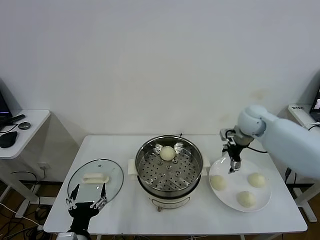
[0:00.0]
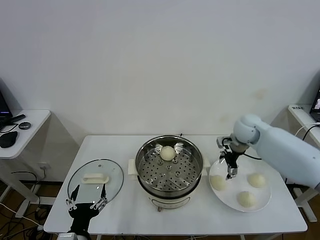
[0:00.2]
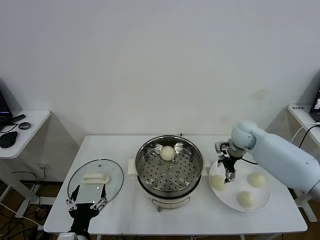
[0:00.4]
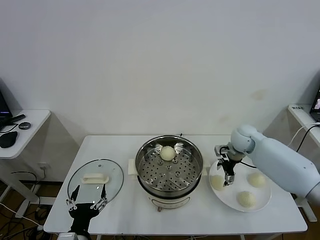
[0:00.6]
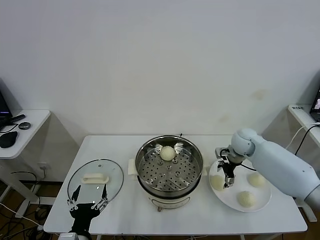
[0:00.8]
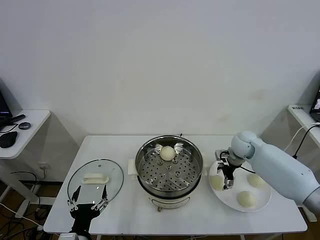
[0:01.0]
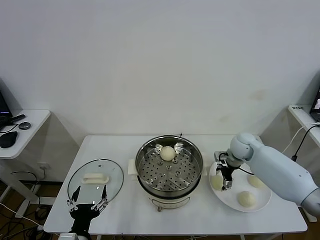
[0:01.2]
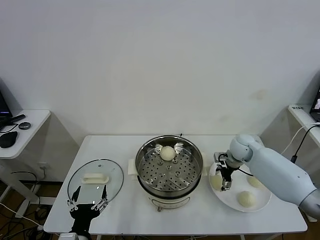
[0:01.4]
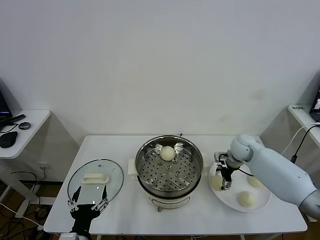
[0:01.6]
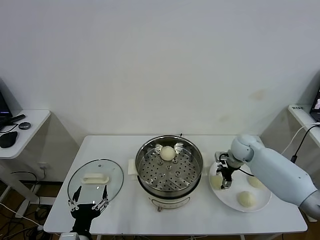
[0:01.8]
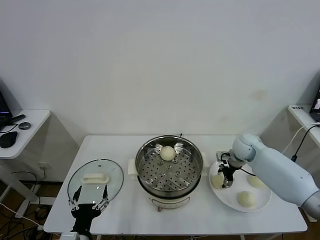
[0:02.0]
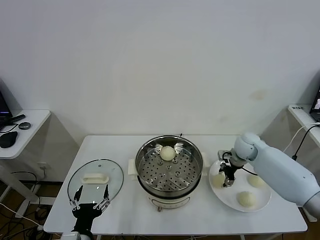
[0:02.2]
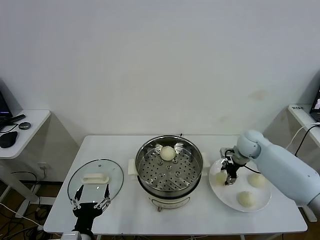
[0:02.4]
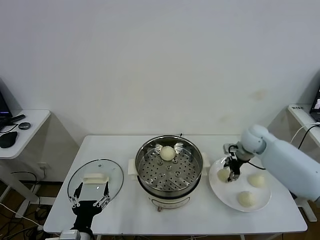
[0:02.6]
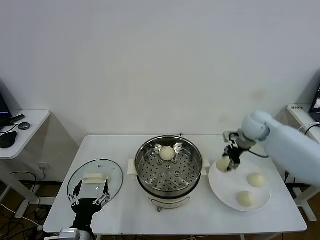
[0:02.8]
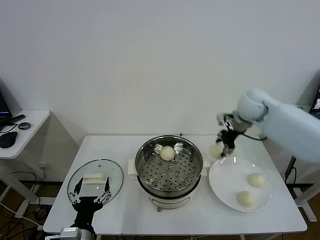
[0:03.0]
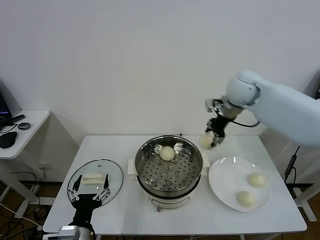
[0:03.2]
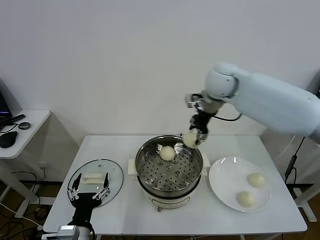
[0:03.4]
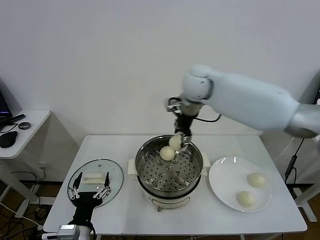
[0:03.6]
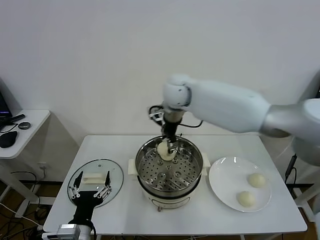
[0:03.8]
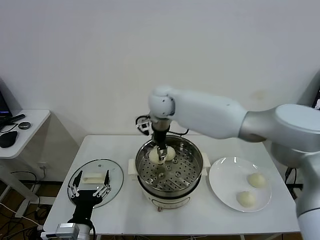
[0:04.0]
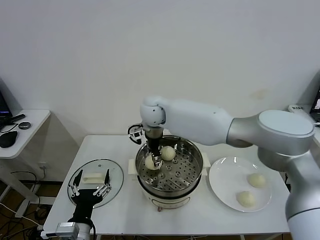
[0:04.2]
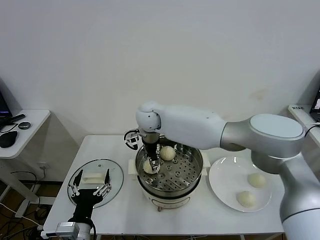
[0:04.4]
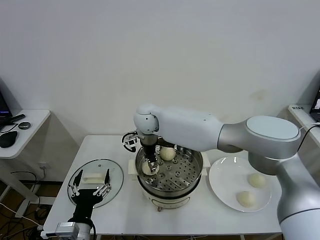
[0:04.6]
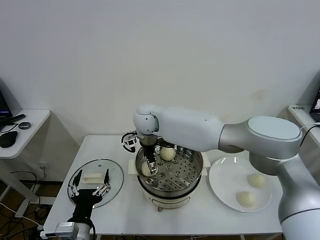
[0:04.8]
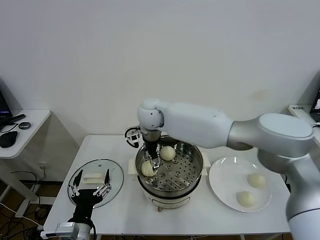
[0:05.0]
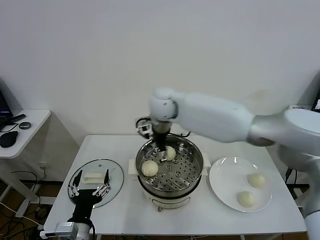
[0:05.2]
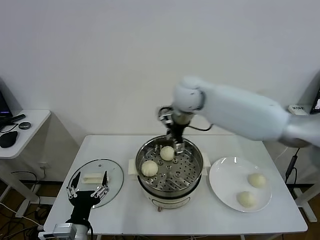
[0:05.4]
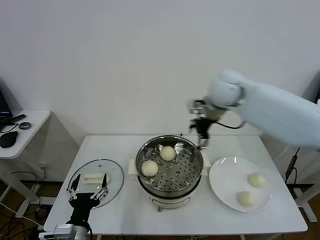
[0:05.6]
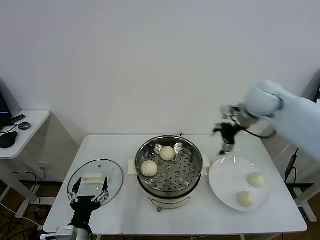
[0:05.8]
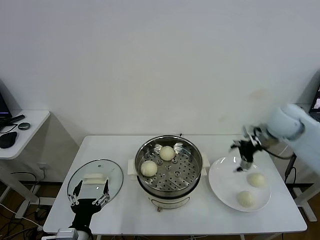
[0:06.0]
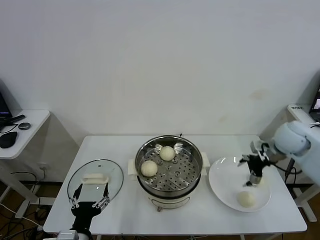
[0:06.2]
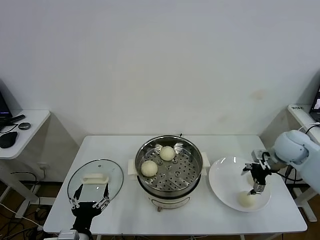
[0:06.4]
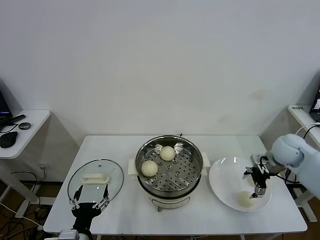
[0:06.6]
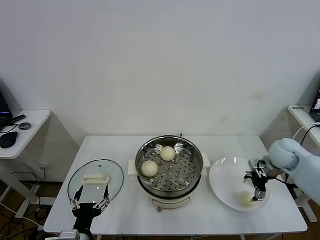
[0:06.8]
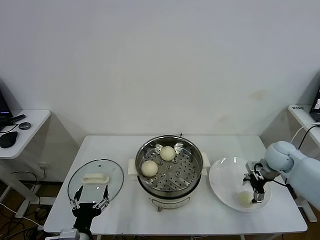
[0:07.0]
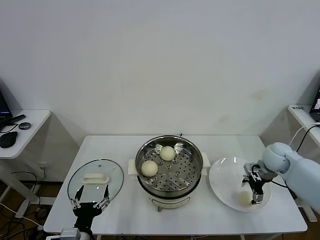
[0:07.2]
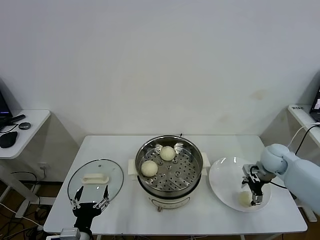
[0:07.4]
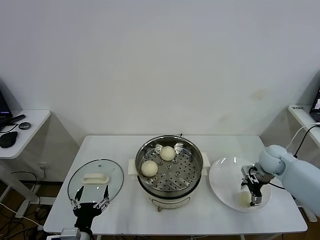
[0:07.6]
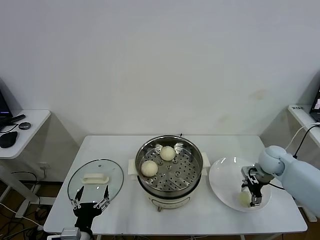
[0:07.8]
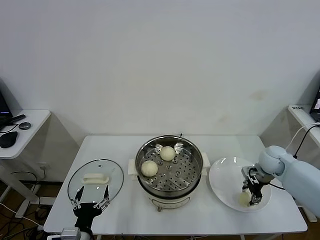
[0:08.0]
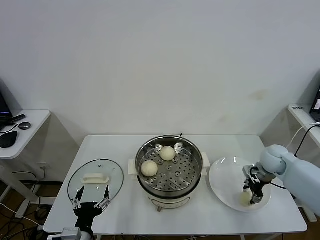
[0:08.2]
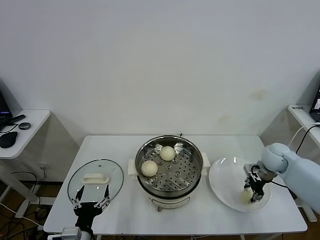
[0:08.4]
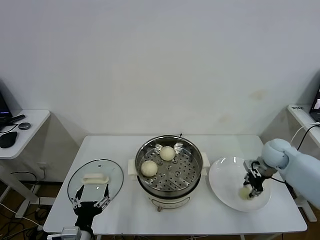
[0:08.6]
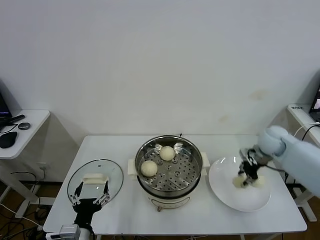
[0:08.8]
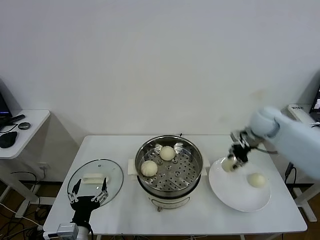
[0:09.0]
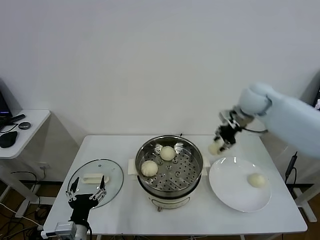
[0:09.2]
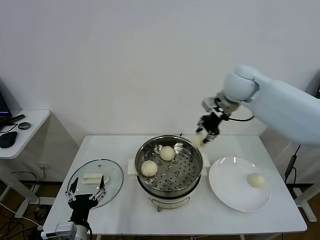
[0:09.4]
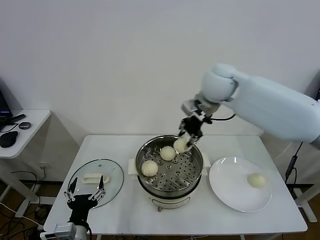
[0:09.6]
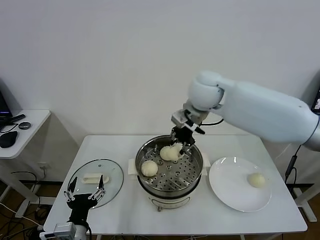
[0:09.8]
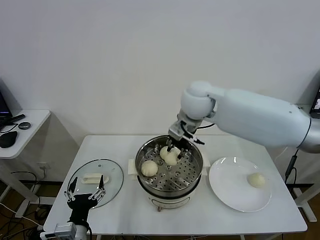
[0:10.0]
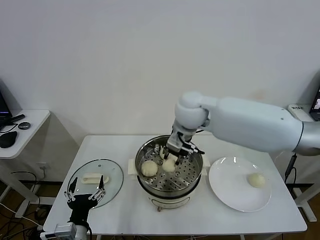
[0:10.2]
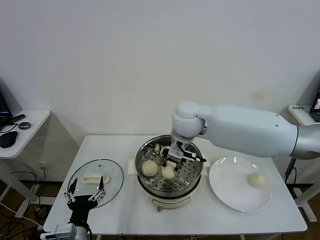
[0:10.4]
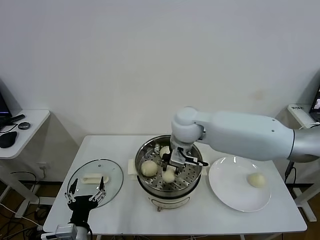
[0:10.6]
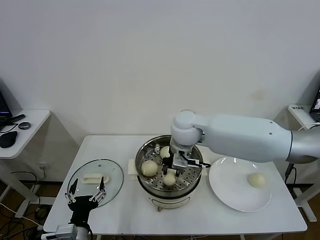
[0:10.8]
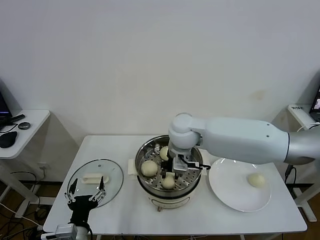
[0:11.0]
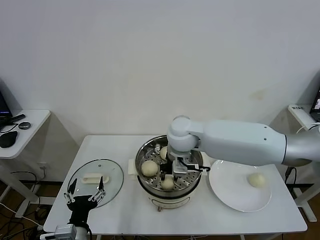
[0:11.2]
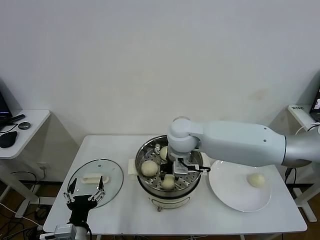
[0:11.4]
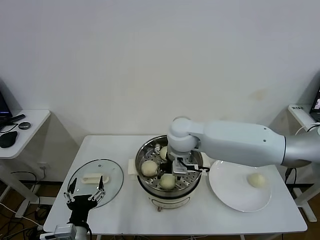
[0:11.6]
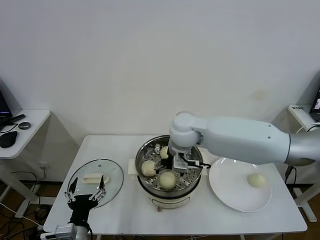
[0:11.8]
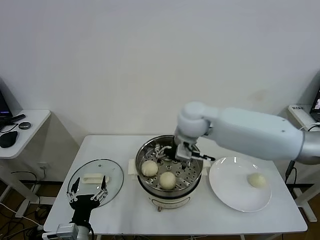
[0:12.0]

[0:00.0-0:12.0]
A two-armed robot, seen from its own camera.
Task of the whole recording: take steamed baozi put them in steamer.
Step, 0.0 to 2.0 s: Grasp the baozi in the plate with right gripper.
Step, 2.2 to 4.8 s: Place the baozi on the steamer with right gripper.
Step, 5.0 to 8.2 s: Grasp the baozi in the plate with right gripper.
Step, 8.4 to 11.8 s: Place the baozi on the steamer with right gripper.
0.0 to 1.6 s: The right gripper moves downward, roughly 15 cm.
1.6 to 3.0 s: The right gripper shifts some 20 cm upward, and closes.
3.0 to 4.4 s: The right gripper travels to the left by roughly 35 cm.
4.4 to 6.0 s: The right gripper travels to the right by roughly 40 cm, and opens up.
6.0 to 7.6 s: The right gripper travels downward by some 15 cm.
7.6 to 9.0 s: The right gripper heads upward, forward and to the left, covering approximately 15 cm, and closes.
9.0 to 10.4 s: The right gripper moves to the left, some 25 cm.
10.4 to 12.0 s: The right gripper opens up.

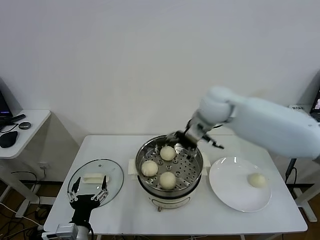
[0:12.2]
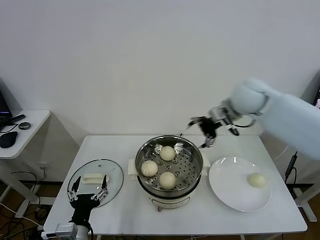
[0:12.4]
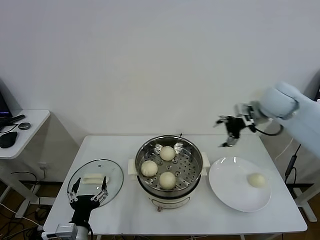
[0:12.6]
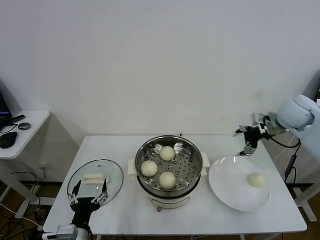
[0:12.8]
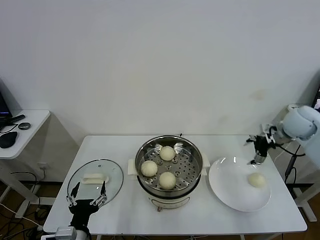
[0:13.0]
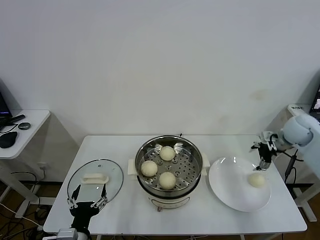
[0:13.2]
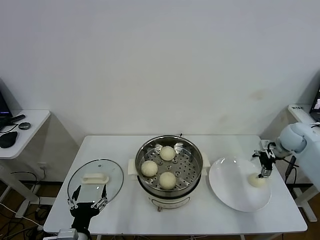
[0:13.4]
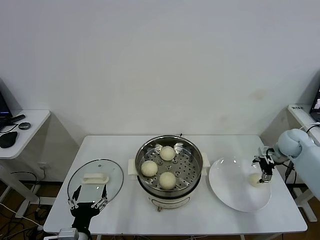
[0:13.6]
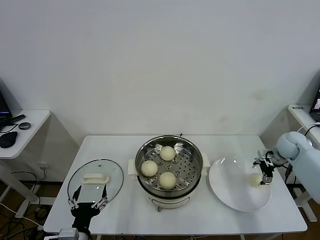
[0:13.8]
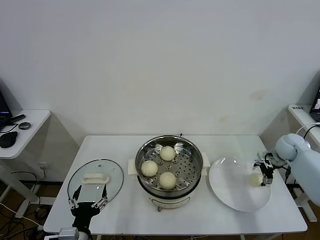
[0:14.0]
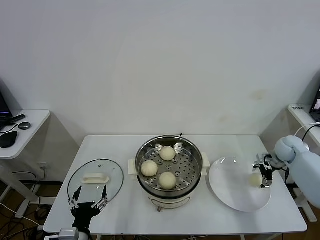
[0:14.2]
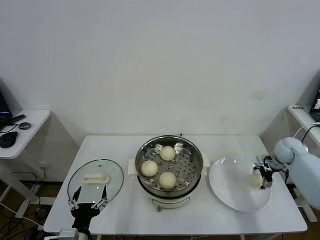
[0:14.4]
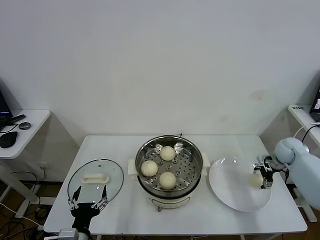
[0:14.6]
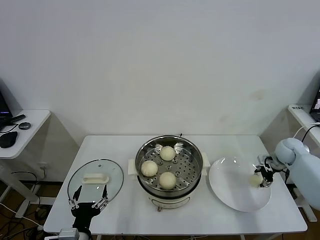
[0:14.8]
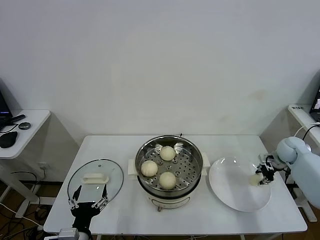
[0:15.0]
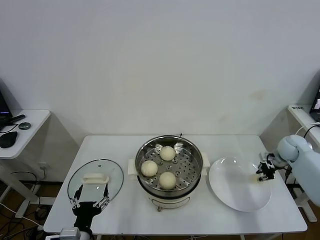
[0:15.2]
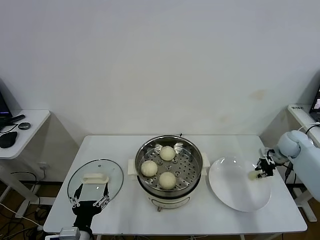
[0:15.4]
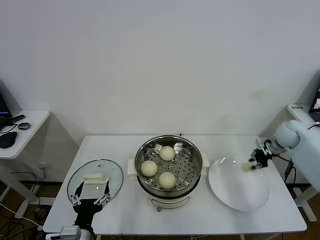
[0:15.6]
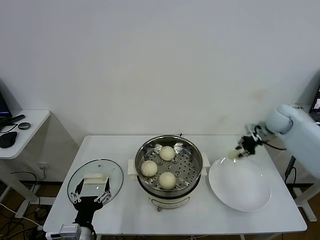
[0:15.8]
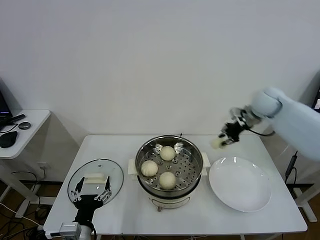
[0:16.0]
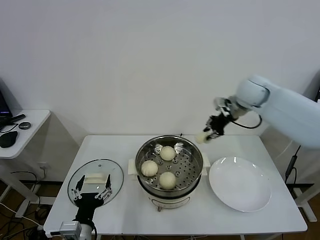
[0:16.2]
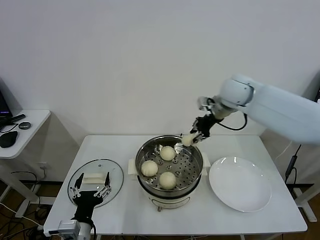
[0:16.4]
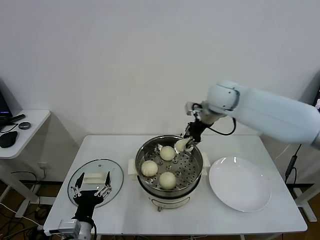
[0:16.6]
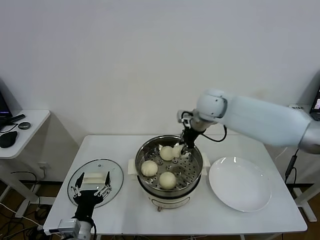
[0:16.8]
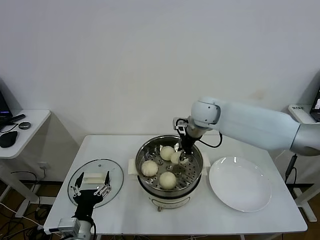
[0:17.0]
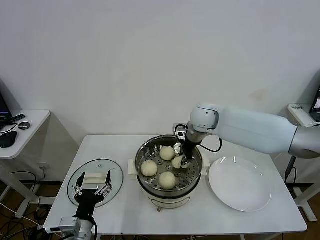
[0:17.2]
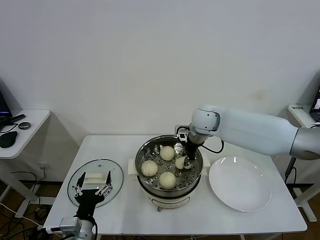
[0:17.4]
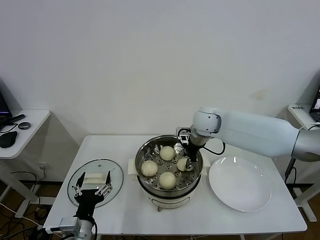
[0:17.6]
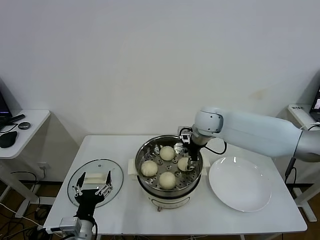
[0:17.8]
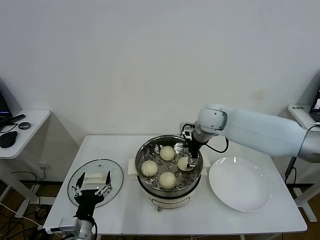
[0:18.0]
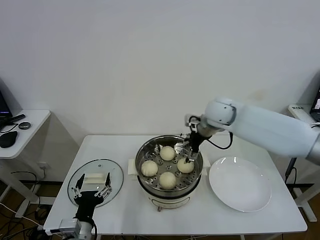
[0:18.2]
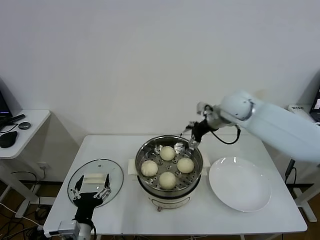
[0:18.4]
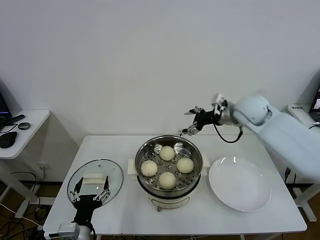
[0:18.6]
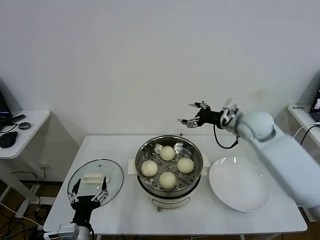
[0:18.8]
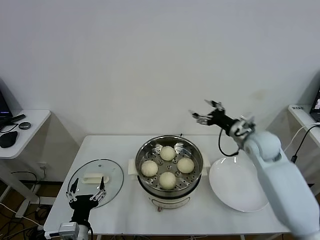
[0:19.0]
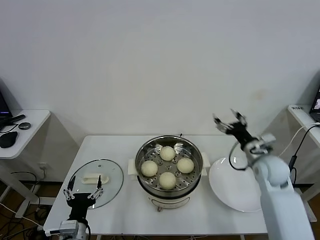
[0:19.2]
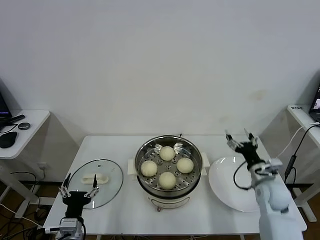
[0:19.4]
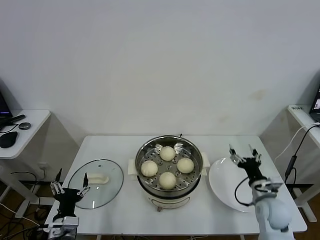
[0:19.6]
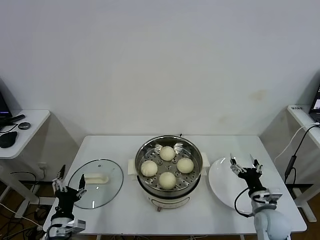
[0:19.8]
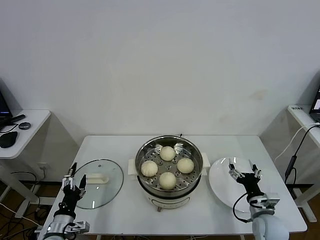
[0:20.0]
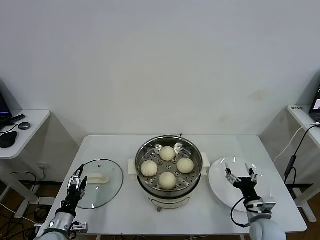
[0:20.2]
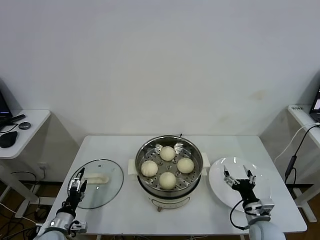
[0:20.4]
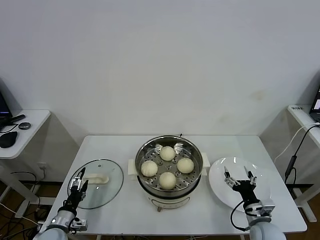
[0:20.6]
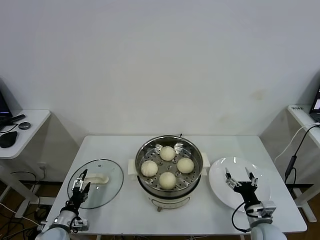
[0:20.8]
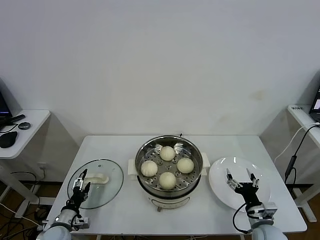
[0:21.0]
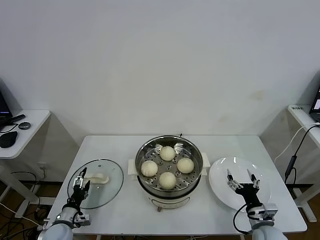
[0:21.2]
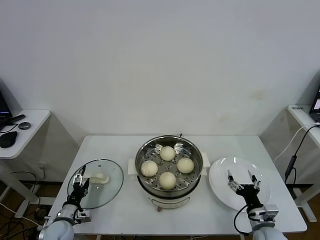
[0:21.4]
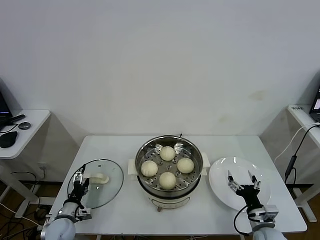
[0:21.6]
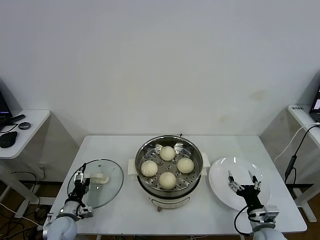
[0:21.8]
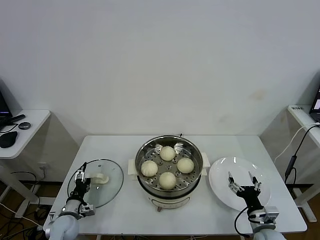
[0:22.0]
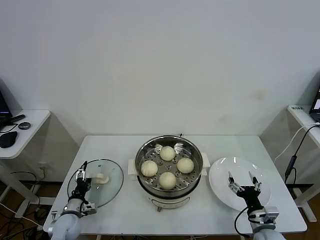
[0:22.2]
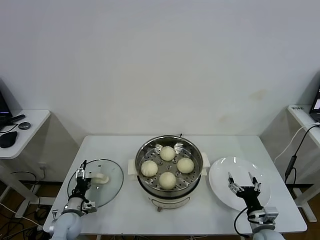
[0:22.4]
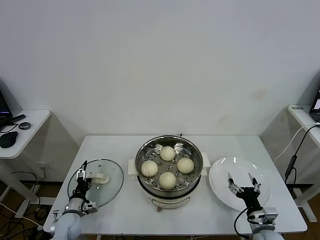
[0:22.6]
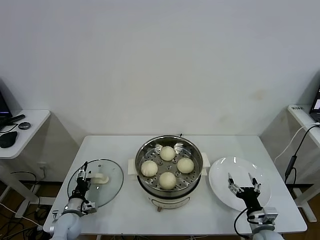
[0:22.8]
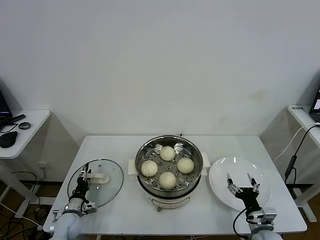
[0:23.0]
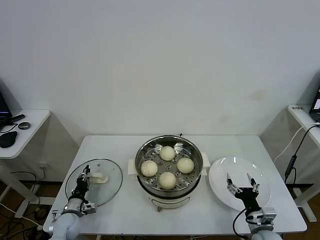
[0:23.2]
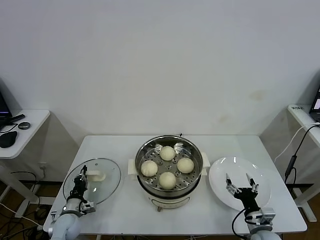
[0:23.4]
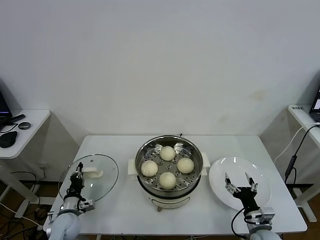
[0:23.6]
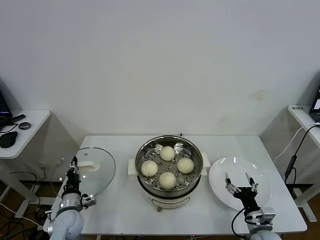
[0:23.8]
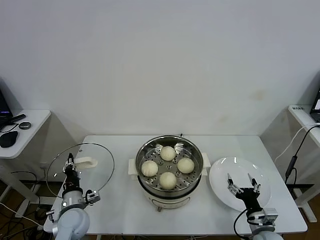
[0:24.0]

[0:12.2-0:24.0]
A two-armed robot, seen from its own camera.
Task of the whole recording: take steamed baozi put them in steamer.
Step, 12.2 to 14.8 s: Grasp the baozi in the plate with right gripper.
Step, 15.0 to 18.2 s: Place the baozi on the steamer with right gripper.
Step, 18.4 to 23.6 s: Grasp the pot lid with left gripper.
12.2 to 13.6 s: The right gripper is displaced to the right and downward by about 35 cm.
13.6 to 15.2 s: The right gripper closes its fingers.
15.2 to 16.6 s: The right gripper travels to the left and upward by about 35 cm.
16.6 to 18.2 s: The right gripper heads downward, covering approximately 5 cm, and opens up.
18.2 to 19.6 s: The right gripper shifts roughly 35 cm downward, backward and to the right; the left gripper travels to the left by roughly 5 cm.
19.6 to 21.0 s: The right gripper goes about 10 cm backward and downward, while the left gripper goes approximately 15 cm downward, to the left and forward.
21.0 to 22.6 s: The left gripper travels forward by about 5 cm.
22.6 to 24.0 s: The left gripper shifts approximately 10 cm upward and to the right, and closes its fingers.
